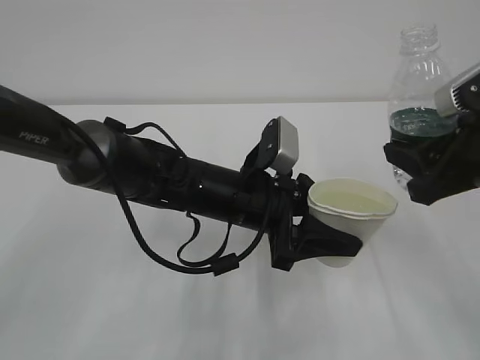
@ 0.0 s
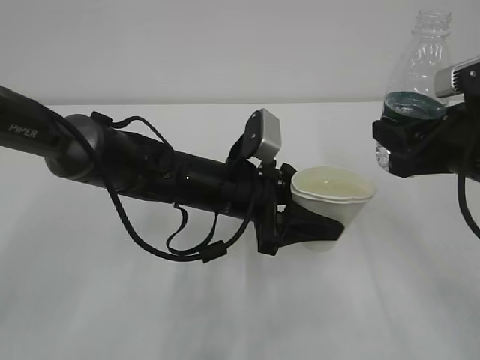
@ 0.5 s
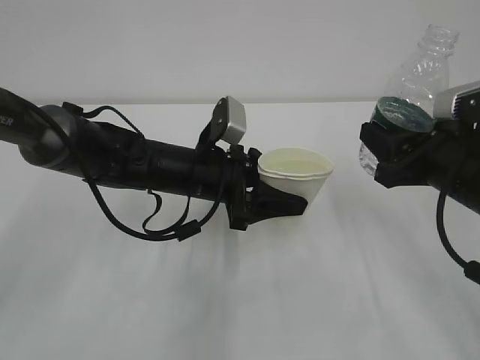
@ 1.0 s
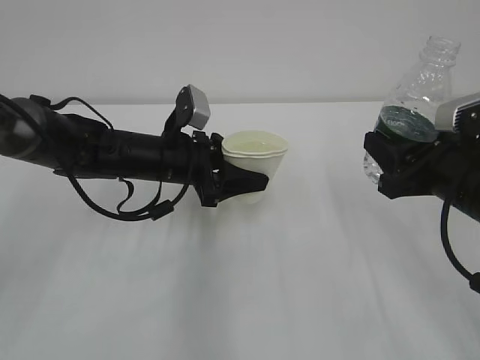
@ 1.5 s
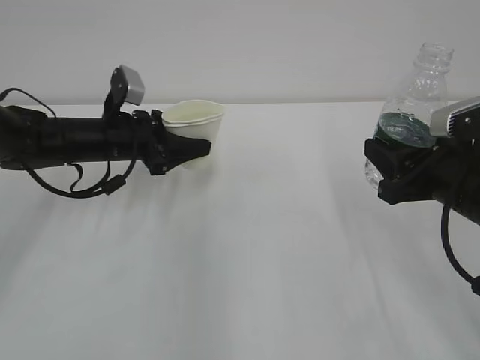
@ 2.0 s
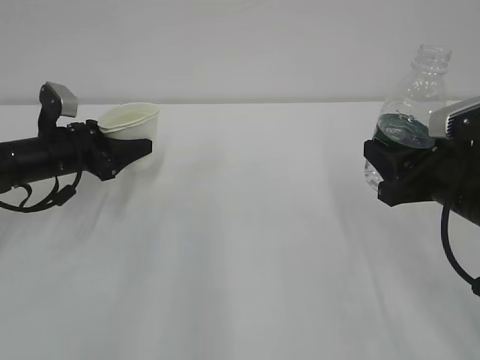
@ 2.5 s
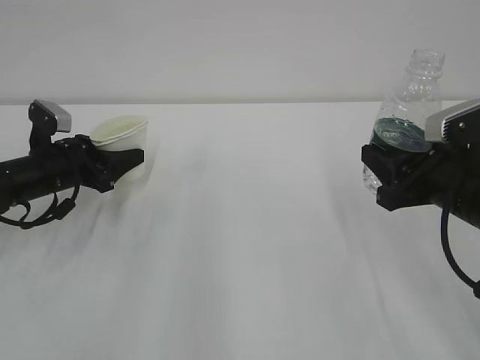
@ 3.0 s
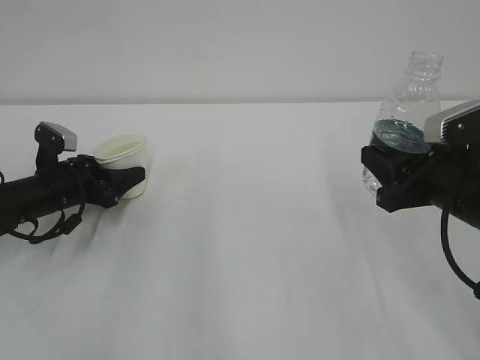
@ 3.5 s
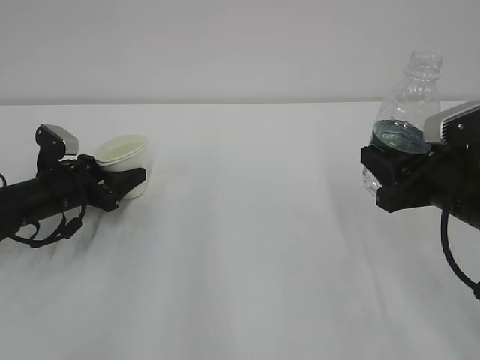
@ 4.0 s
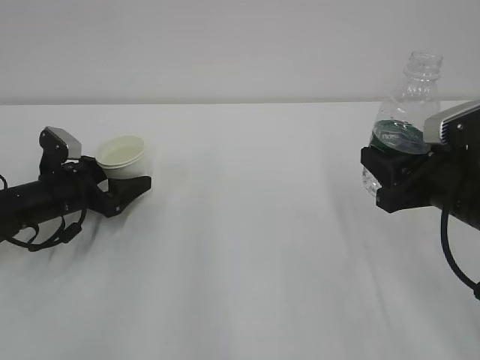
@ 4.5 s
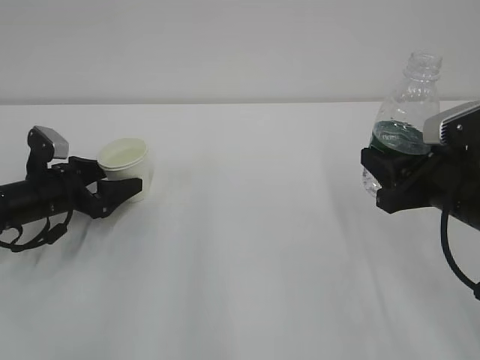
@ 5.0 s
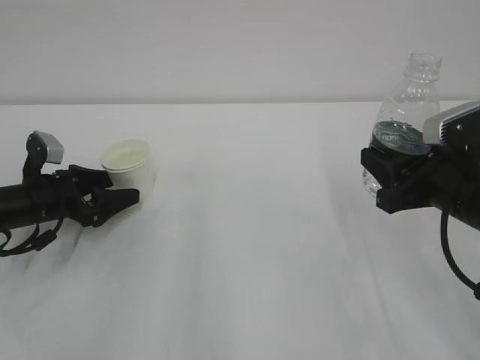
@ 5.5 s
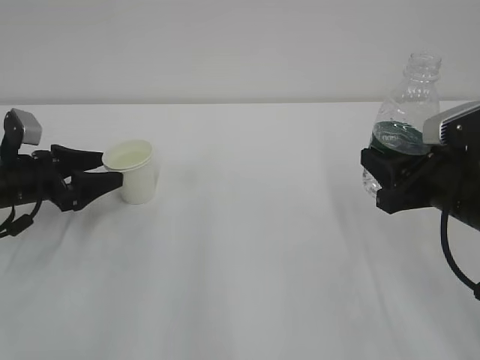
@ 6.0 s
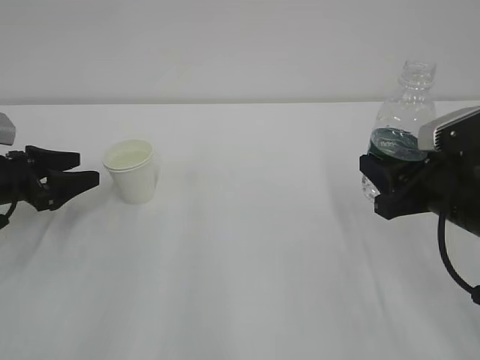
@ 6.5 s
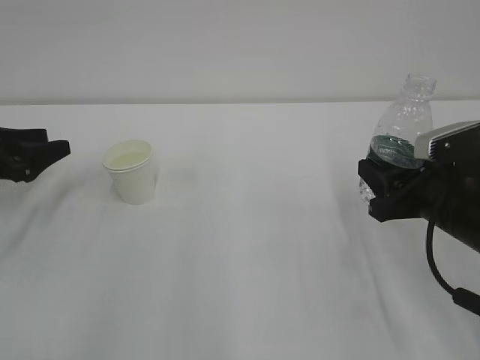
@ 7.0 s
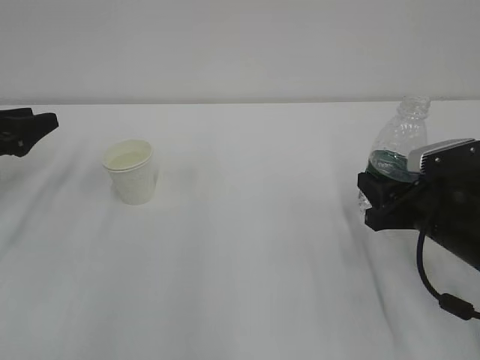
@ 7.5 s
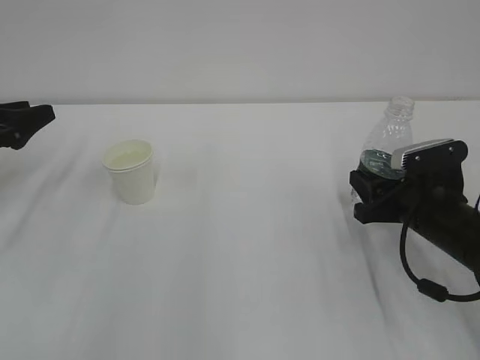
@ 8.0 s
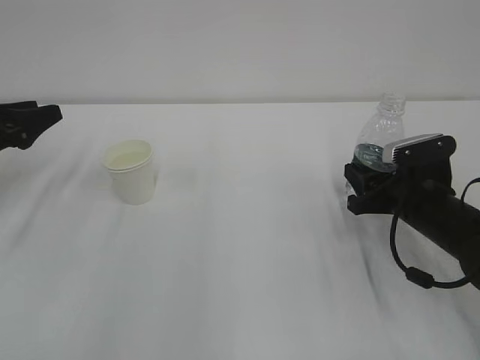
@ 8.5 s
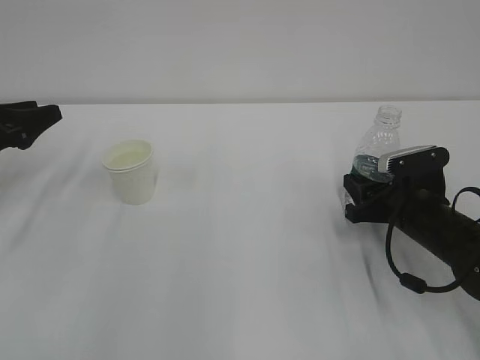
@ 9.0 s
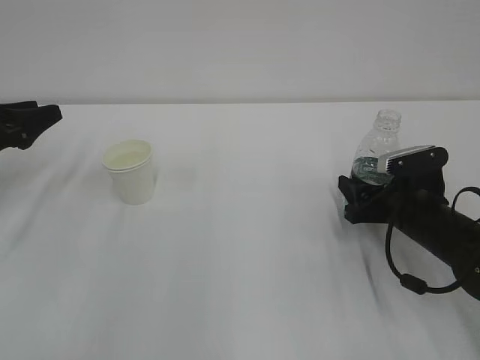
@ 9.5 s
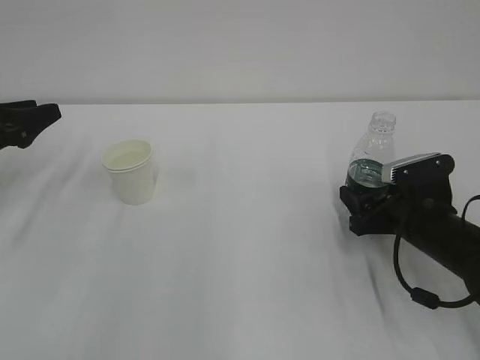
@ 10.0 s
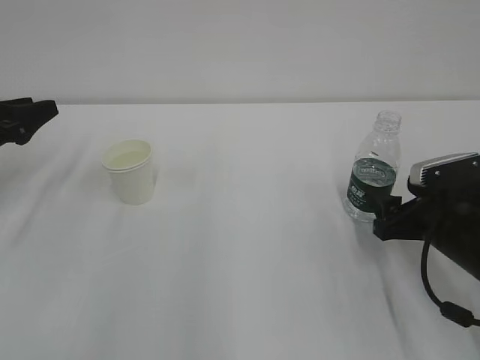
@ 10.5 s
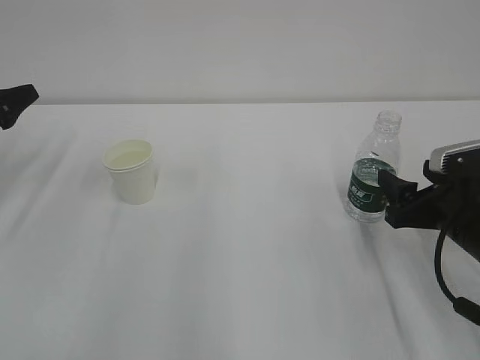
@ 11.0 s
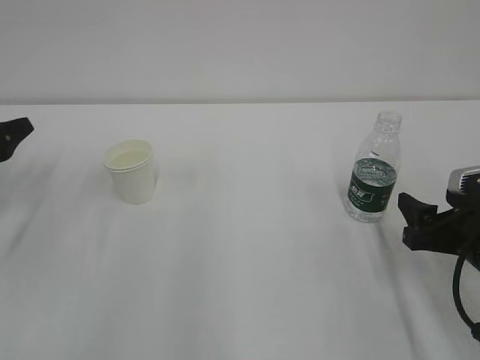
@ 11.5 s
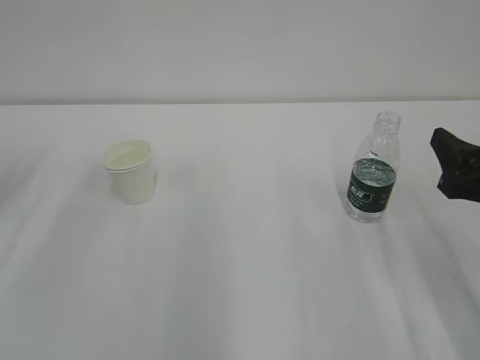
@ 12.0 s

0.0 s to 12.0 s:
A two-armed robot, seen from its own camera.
0.0 to 2.0 s: The left gripper is displaced to the left and forward by roughly 20 cm. The right gripper shifts approximately 5 cm downward.
2.0 to 4.0 s: The left gripper is displaced to the left and downward by roughly 10 cm.
4.0 to 6.0 s: The left gripper ends up approximately 5 cm from where it was, and opens.
6.0 to 8.0 s: The right gripper shifts approximately 10 cm downward. Meanwhile the left gripper travels to the left and upward by some 10 cm.
8.0 to 10.0 s: The right gripper opens.
10.0 to 12.0 s: The left gripper is displaced backward by about 5 cm, and closes up; the right gripper shifts about 15 cm upward and backward.

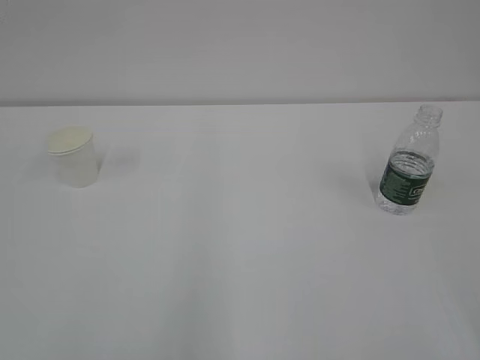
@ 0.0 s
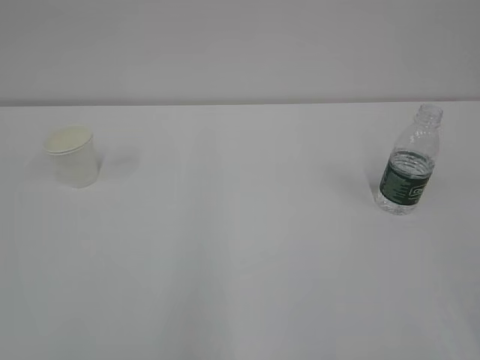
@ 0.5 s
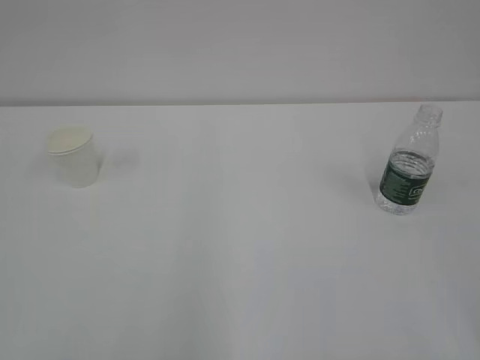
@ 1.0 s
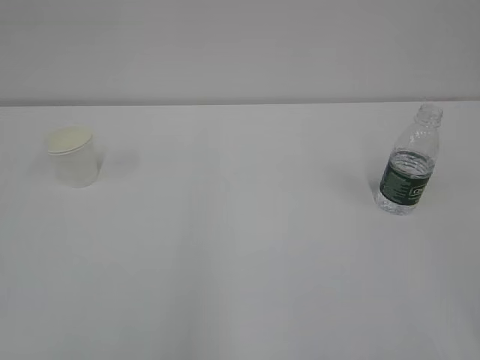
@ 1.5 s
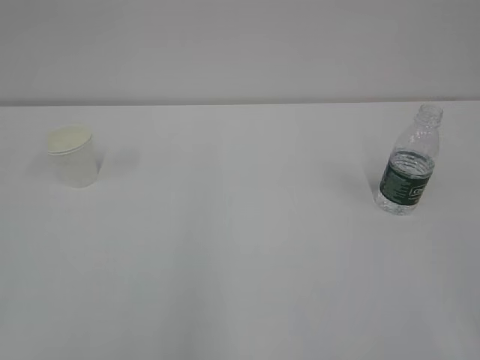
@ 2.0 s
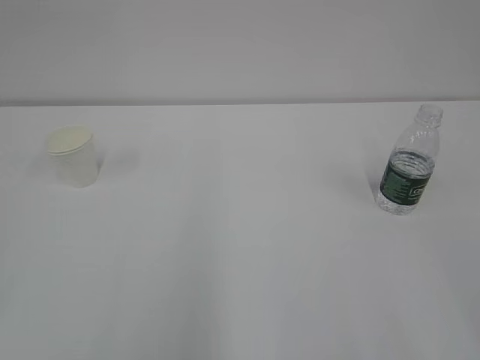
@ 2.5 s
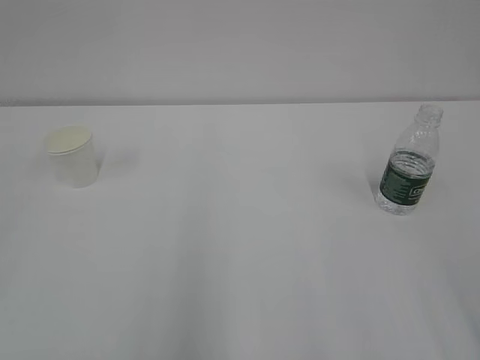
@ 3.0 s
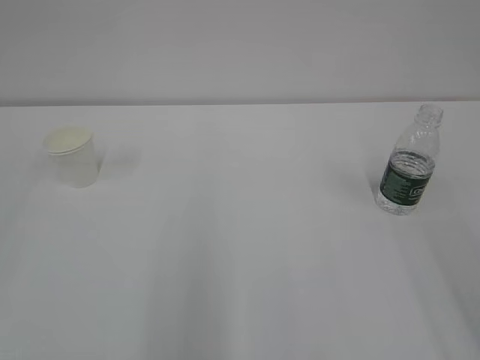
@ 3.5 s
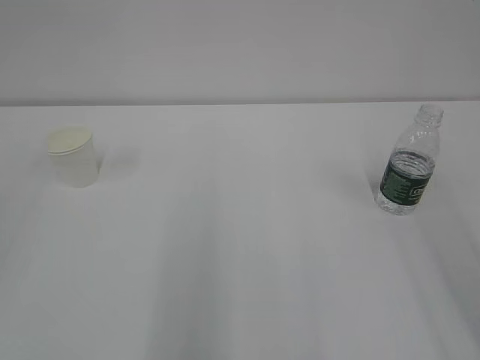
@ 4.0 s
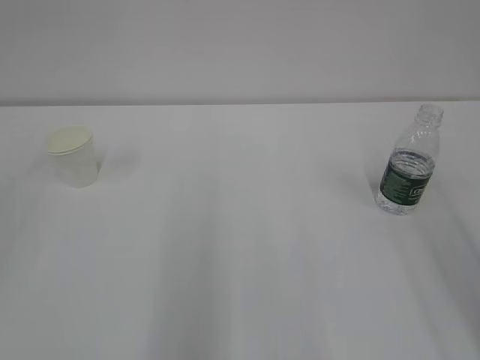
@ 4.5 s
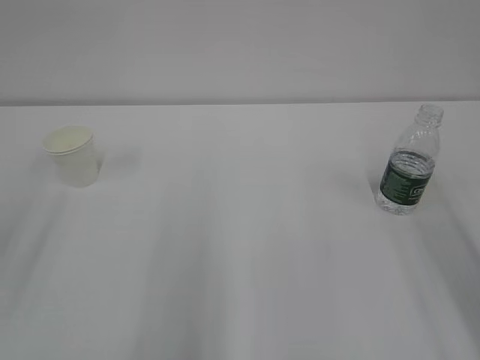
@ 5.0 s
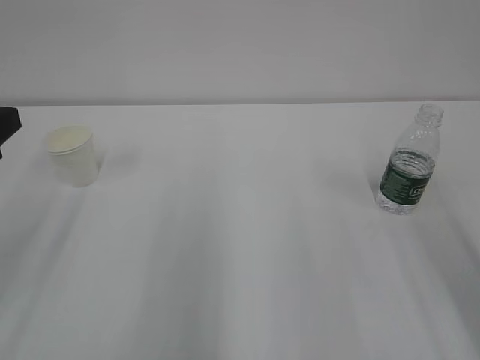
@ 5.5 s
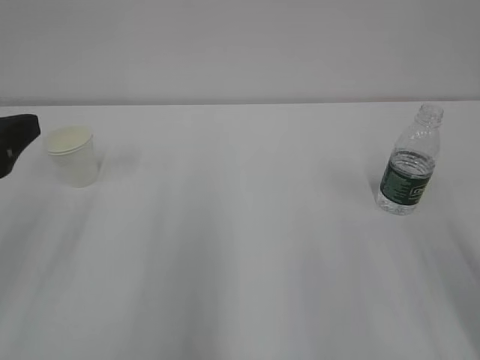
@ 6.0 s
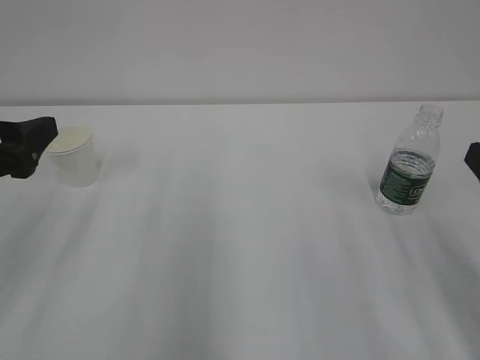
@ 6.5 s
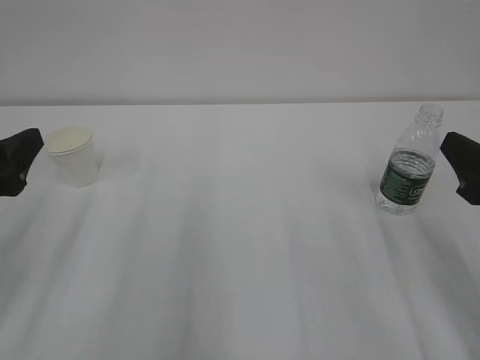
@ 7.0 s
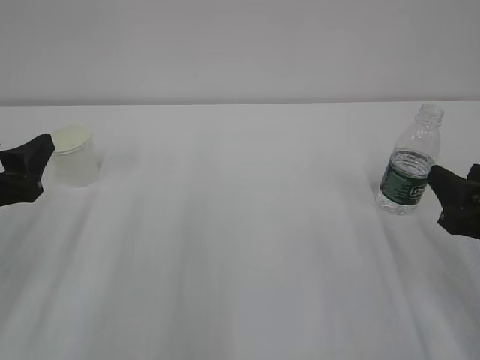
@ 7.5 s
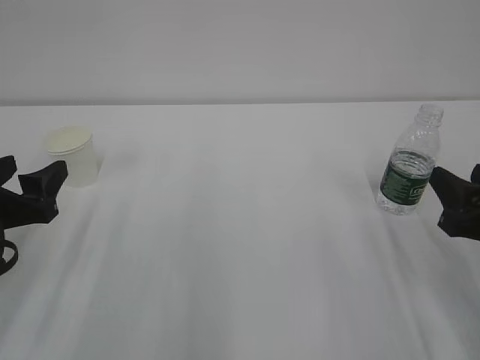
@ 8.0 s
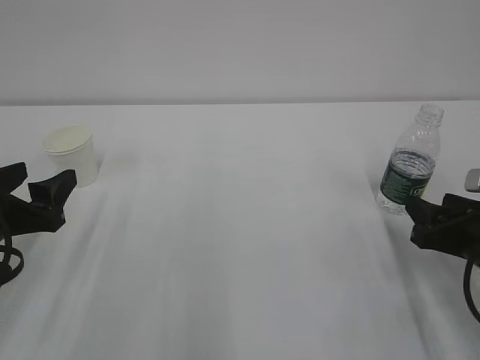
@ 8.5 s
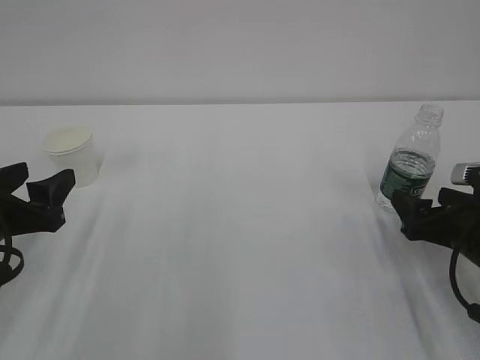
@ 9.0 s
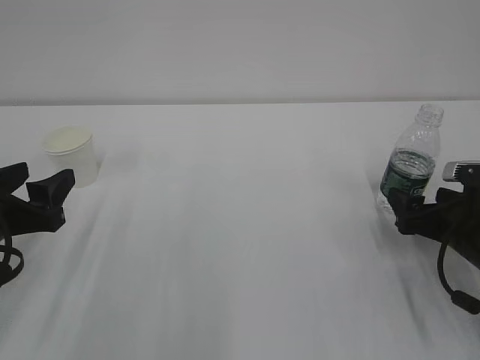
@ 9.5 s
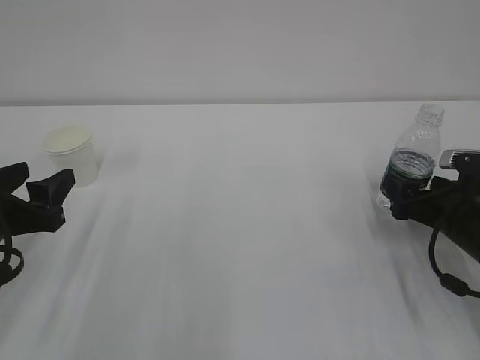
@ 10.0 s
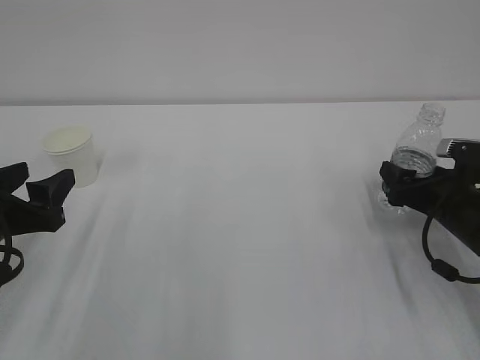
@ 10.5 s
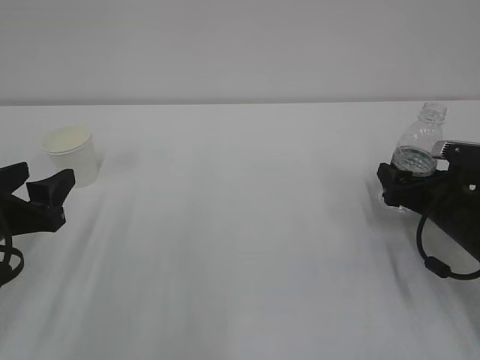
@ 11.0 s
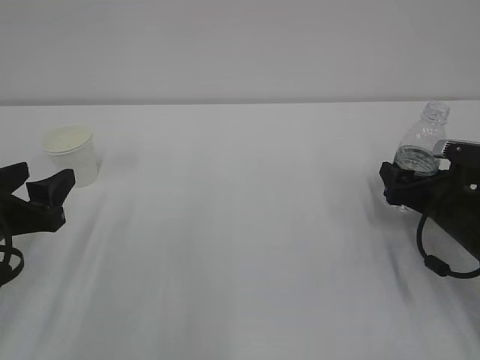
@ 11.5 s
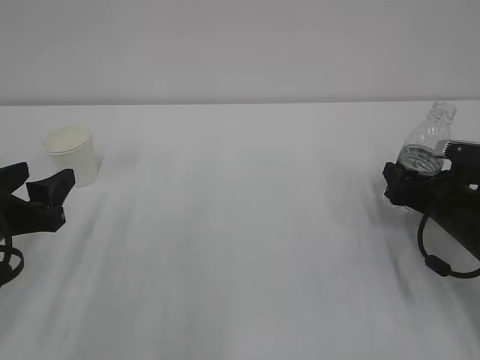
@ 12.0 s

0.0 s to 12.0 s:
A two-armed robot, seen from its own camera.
4.0 to 6.0 s: The left gripper shifts roughly 10 cm downward and forward, and opens up.
6.0 to 8.0 s: The left gripper shifts about 10 cm downward, while the right gripper travels downward and forward by approximately 10 cm.
8.0 to 10.0 s: The right gripper is displaced forward and downward by some 10 cm, and opens.
10.0 to 12.0 s: The right gripper closes up.

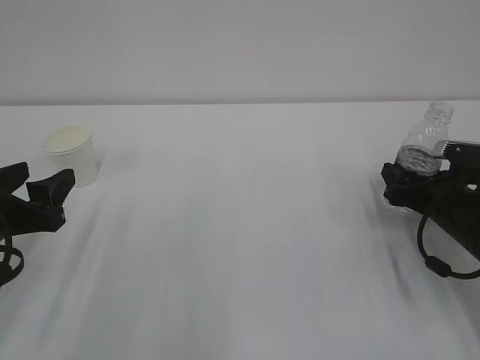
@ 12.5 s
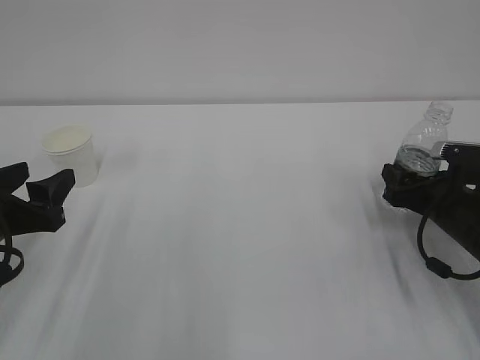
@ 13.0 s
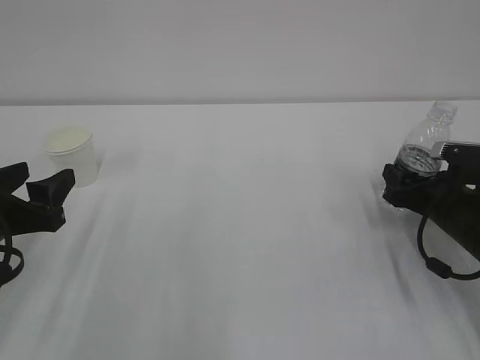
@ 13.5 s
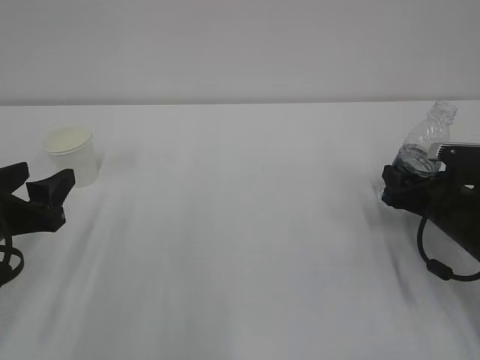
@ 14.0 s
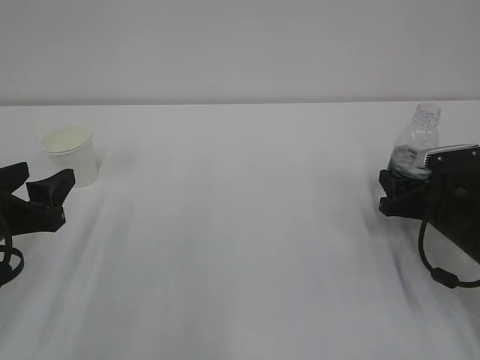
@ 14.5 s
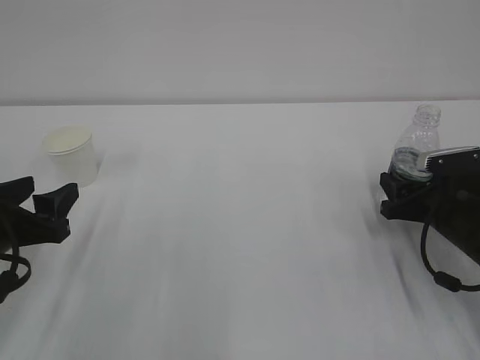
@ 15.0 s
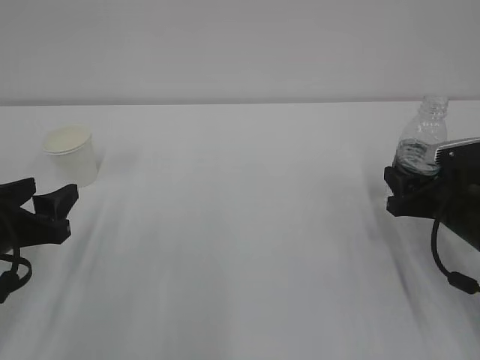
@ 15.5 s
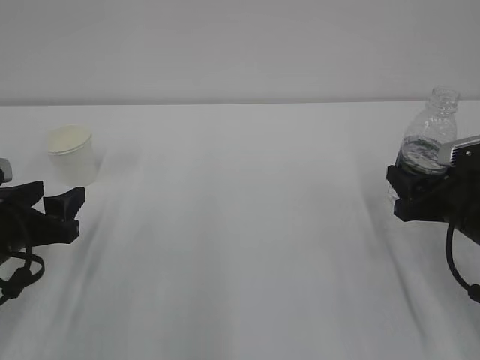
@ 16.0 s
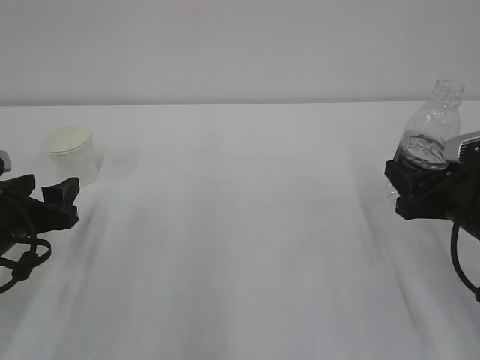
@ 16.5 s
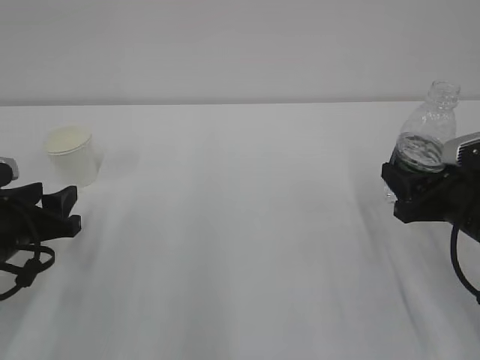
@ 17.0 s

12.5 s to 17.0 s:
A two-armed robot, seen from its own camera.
12.5 to 14.5 s: The right gripper closes.
14.5 to 17.0 s: The right gripper goes about 10 cm upward and backward. Meanwhile the left gripper closes its fingers.
